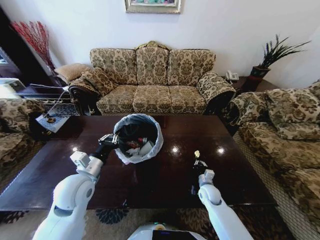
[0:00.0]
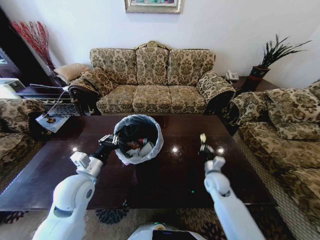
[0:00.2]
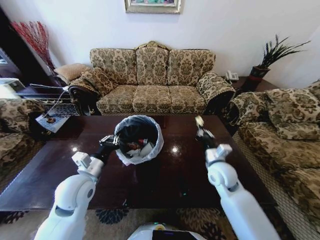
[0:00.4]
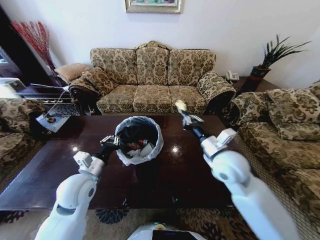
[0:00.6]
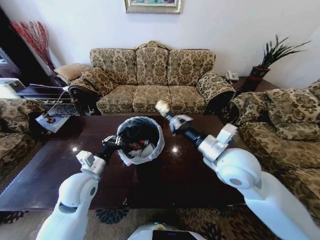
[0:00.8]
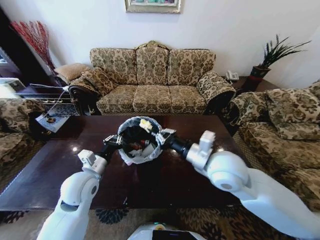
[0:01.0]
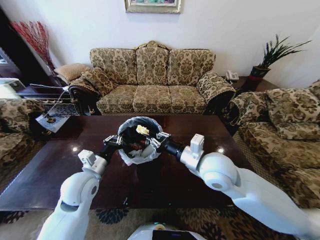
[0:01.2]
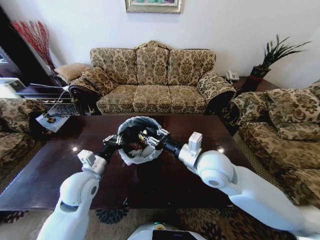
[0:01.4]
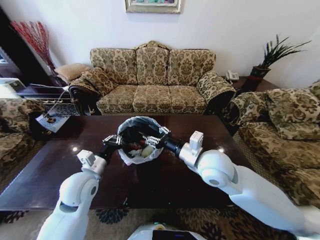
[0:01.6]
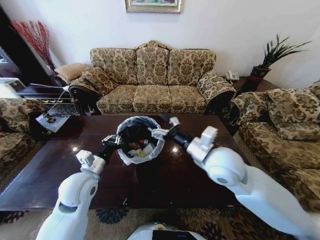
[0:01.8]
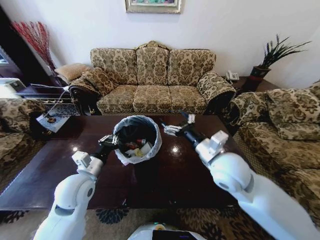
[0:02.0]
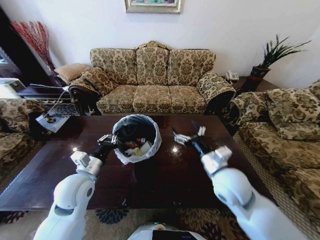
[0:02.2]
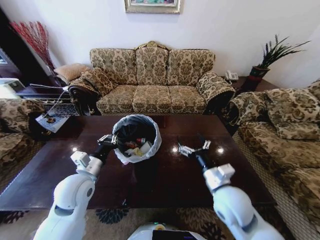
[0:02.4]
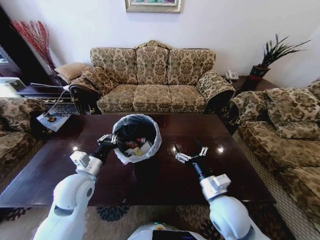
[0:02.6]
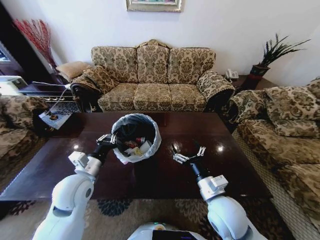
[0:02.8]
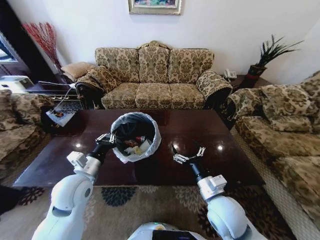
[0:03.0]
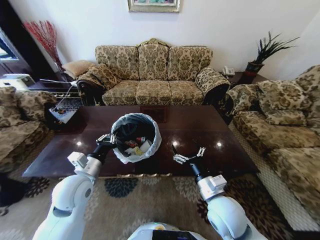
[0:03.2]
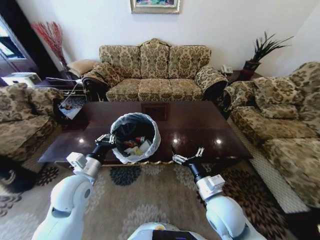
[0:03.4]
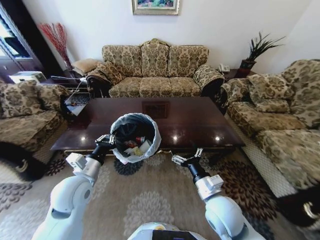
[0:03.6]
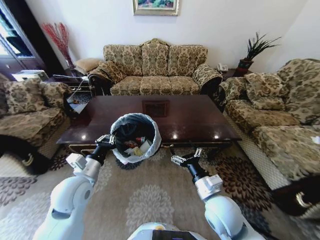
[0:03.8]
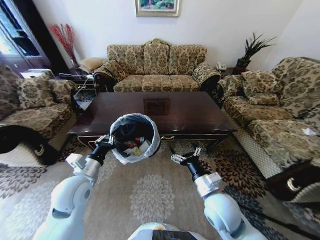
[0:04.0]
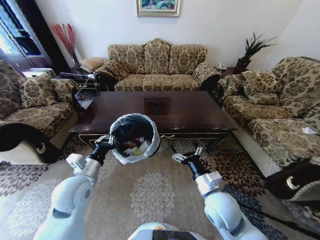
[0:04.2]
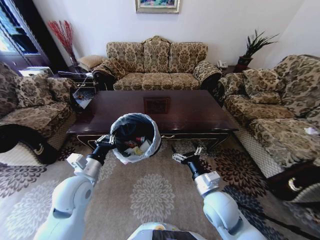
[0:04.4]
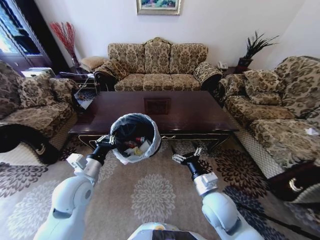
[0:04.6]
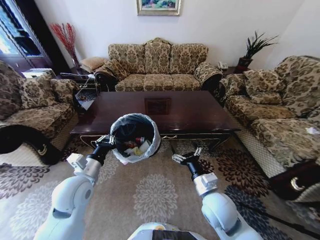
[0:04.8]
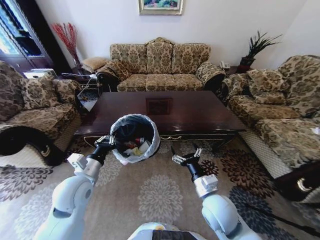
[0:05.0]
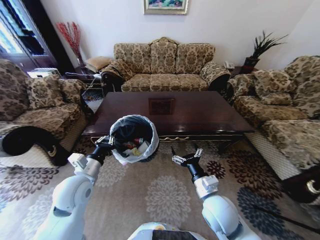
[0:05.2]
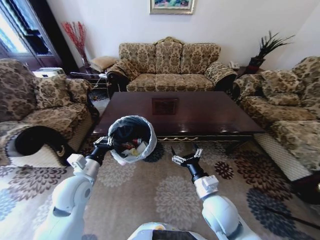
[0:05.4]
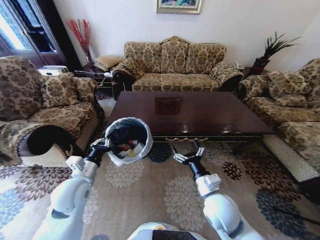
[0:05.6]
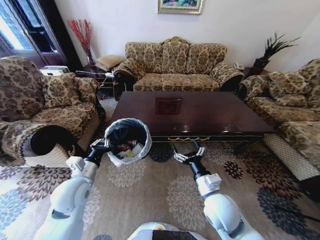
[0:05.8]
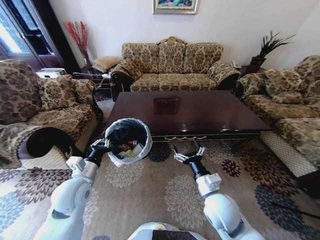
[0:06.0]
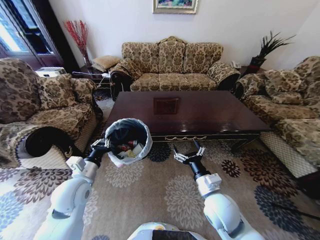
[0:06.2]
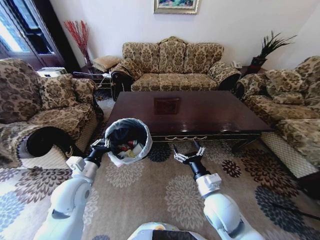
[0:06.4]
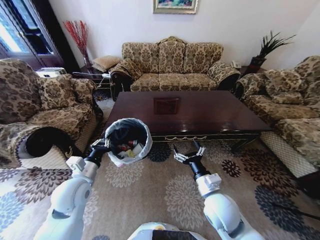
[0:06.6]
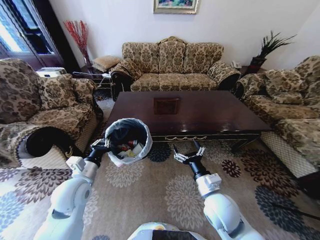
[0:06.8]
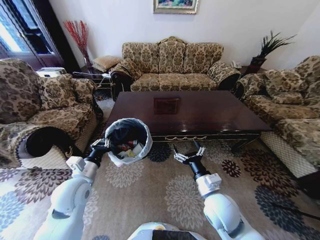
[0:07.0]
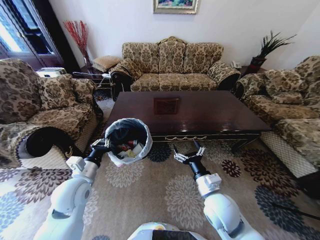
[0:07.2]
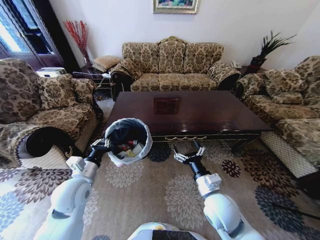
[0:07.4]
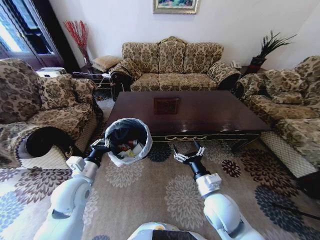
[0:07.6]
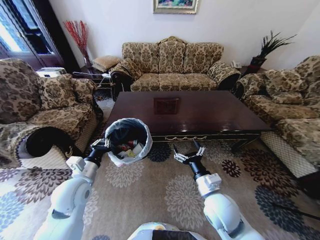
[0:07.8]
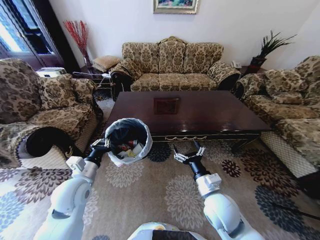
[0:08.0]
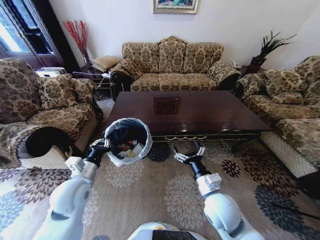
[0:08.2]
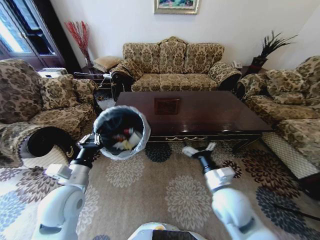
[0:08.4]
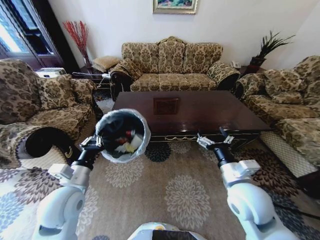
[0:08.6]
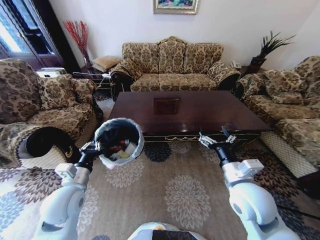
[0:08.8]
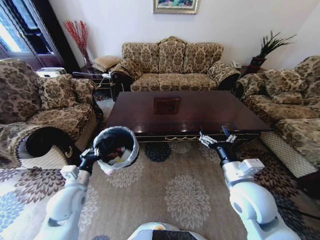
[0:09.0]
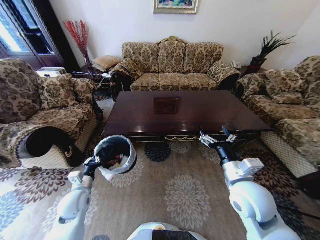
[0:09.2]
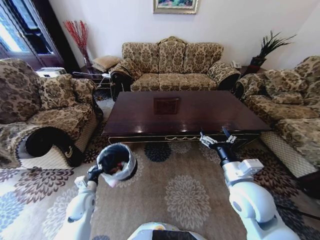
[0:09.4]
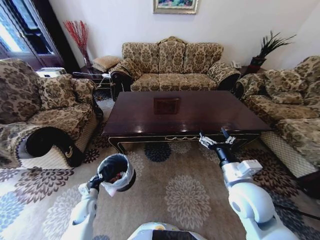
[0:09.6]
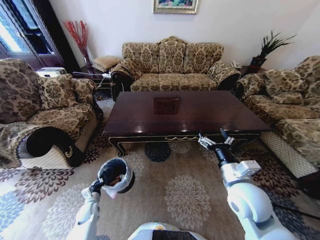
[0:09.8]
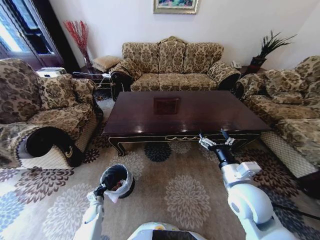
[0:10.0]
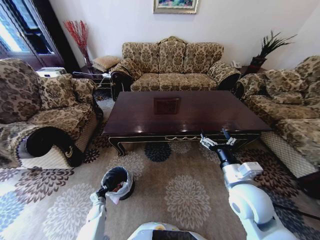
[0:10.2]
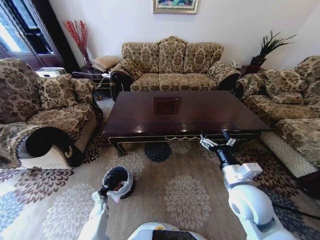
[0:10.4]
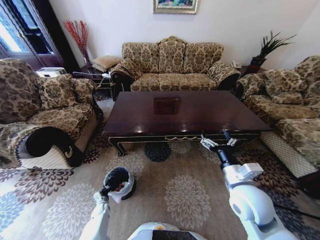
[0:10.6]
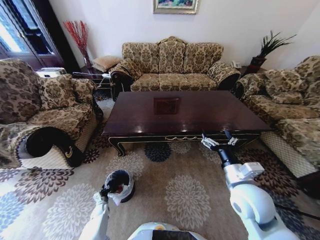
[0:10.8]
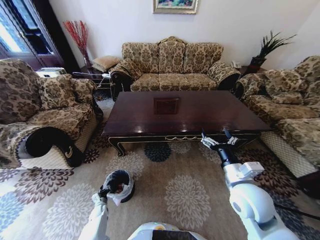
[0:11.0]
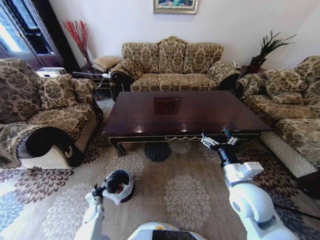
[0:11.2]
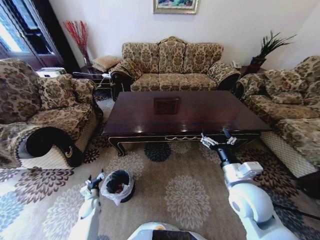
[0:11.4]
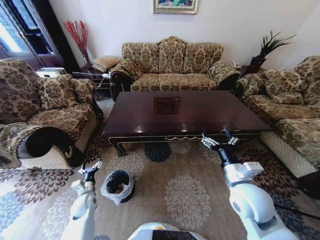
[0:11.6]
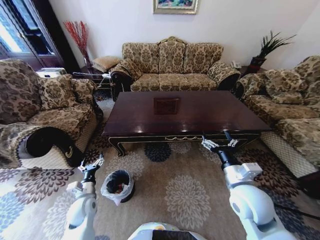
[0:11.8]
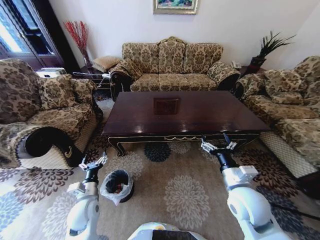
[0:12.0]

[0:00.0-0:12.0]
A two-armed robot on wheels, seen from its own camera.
Task of the whole recording: Move to the front of the table and place the trash on the table into the trash bin.
0:00.0 to 0:01.6: The right gripper shifts about 30 cm upward, and opens.
0:01.6 to 0:03.0: The right gripper is displaced downward and backward by approximately 15 cm, and opens.
0:06.0 to 0:07.6: The two grippers keep their place.
0:07.6 to 0:09.0: The right gripper is displaced upward and to the right by roughly 10 cm. Meanwhile the left gripper moves downward, roughly 5 cm.
0:09.0 to 0:10.4: The left gripper is displaced downward by approximately 35 cm.
0:10.4 to 0:12.0: The left gripper moves upward, approximately 30 cm, and opens.

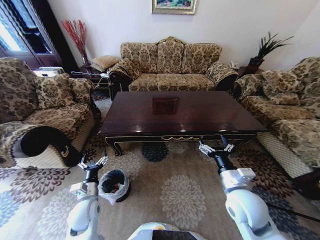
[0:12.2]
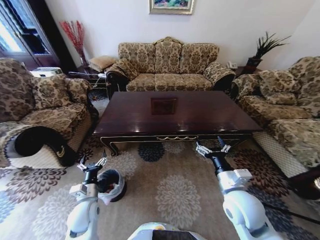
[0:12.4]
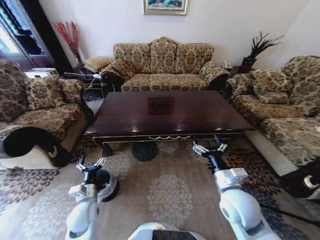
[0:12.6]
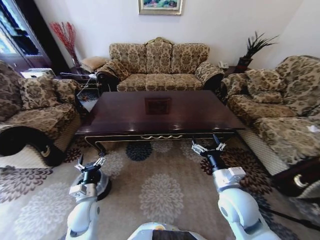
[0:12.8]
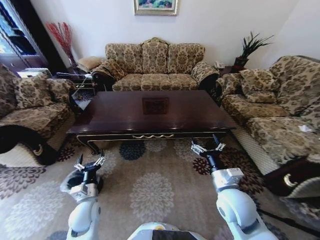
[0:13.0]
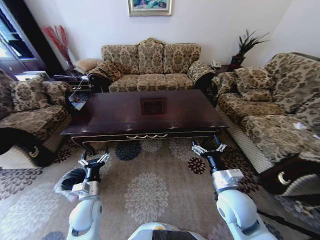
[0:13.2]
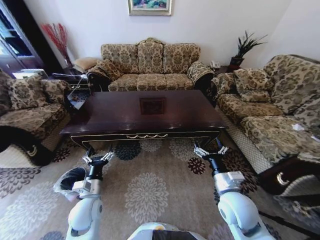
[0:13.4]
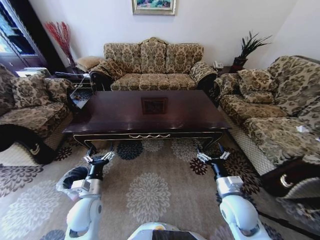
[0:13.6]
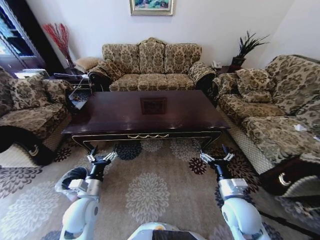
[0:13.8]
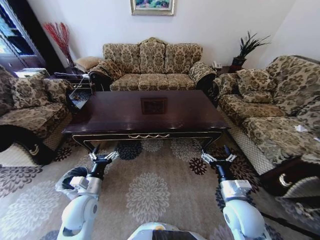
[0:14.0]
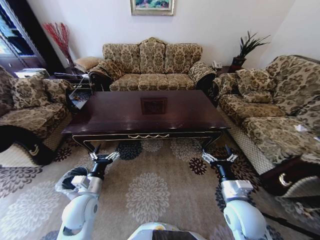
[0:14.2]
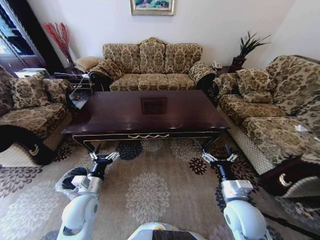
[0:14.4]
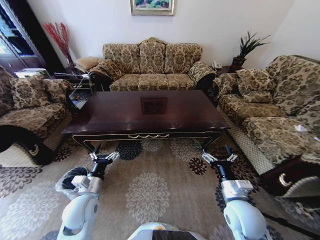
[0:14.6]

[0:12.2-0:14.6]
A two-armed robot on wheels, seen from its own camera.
Task of the whole recording: Move to the front of the table and place the trash on the table into the trash bin.
0:13.4 to 0:14.6: There are only small adjustments of the grippers.
